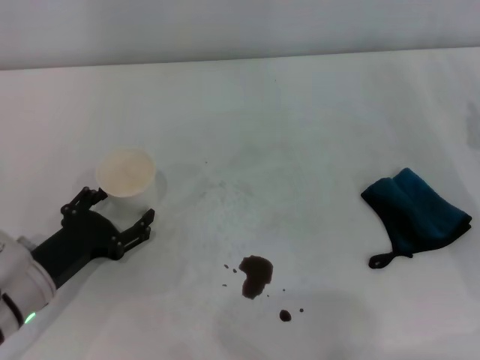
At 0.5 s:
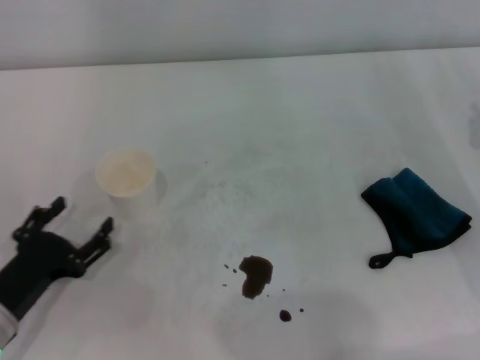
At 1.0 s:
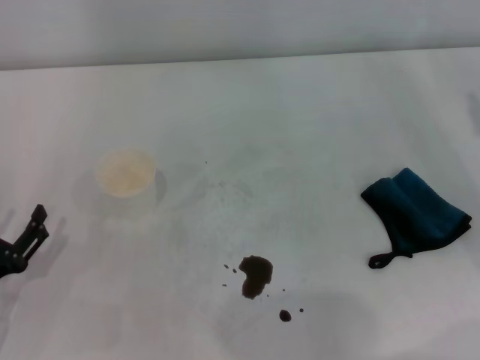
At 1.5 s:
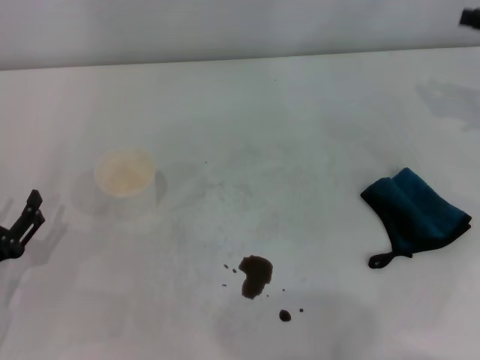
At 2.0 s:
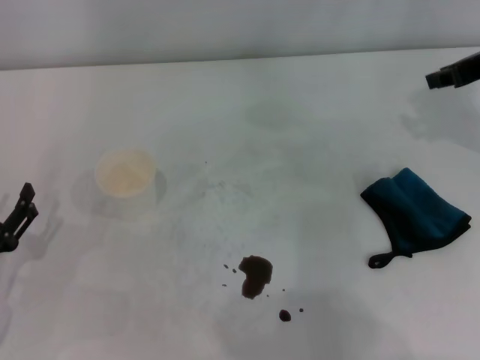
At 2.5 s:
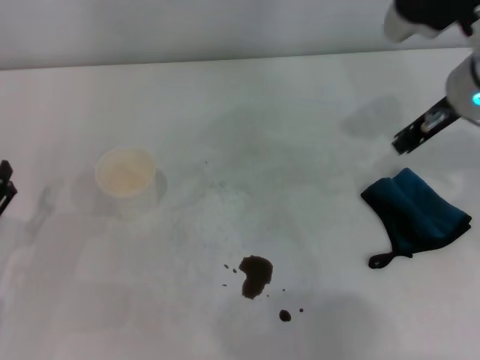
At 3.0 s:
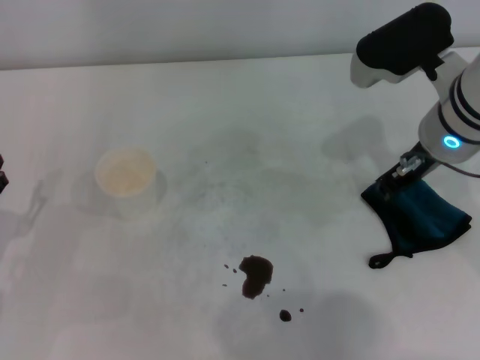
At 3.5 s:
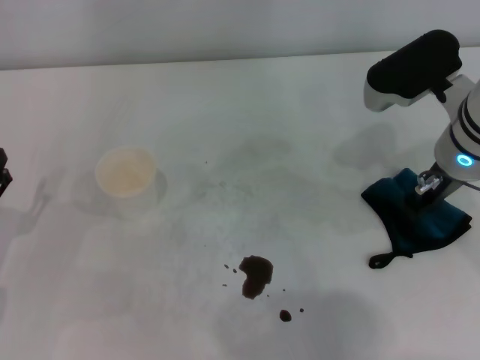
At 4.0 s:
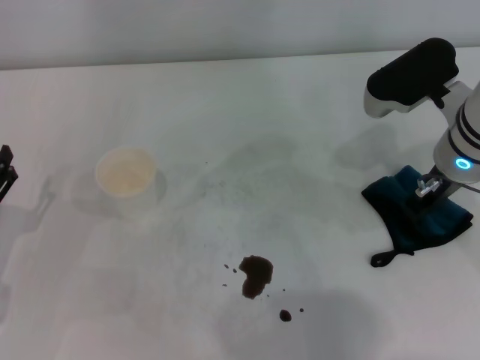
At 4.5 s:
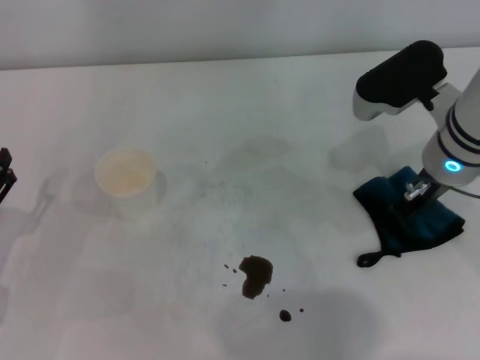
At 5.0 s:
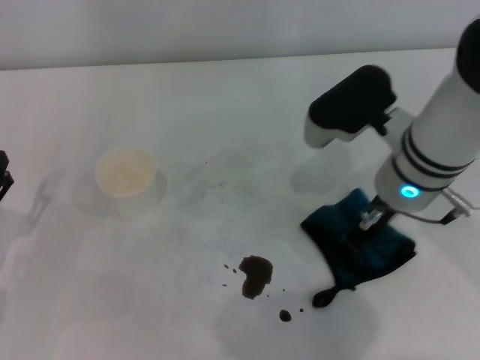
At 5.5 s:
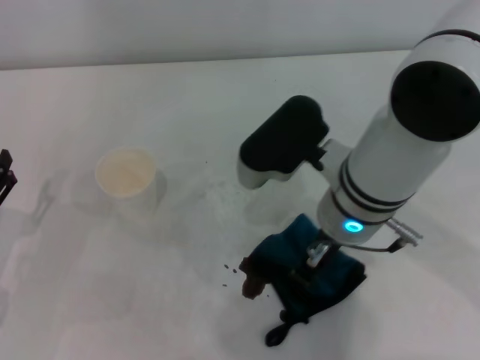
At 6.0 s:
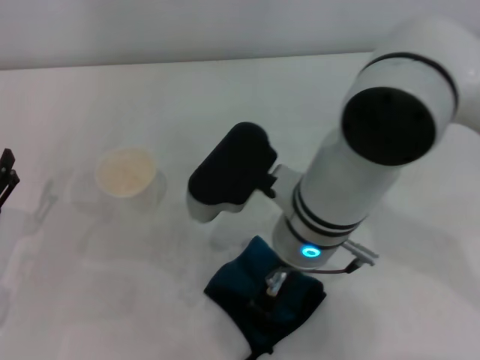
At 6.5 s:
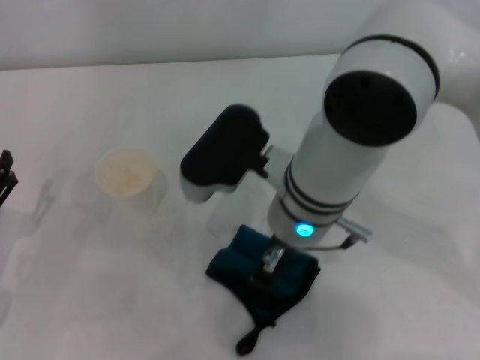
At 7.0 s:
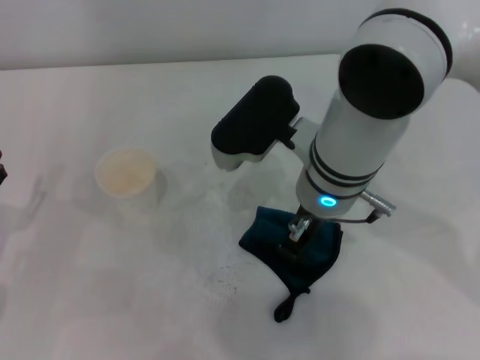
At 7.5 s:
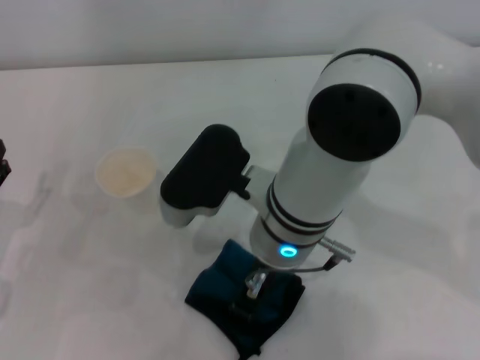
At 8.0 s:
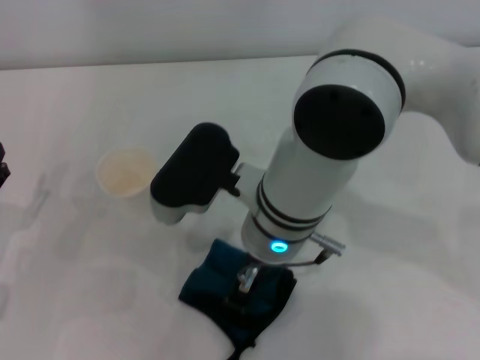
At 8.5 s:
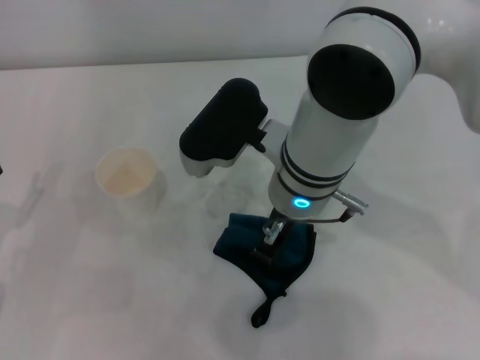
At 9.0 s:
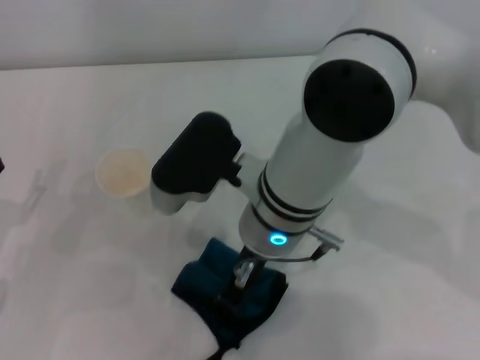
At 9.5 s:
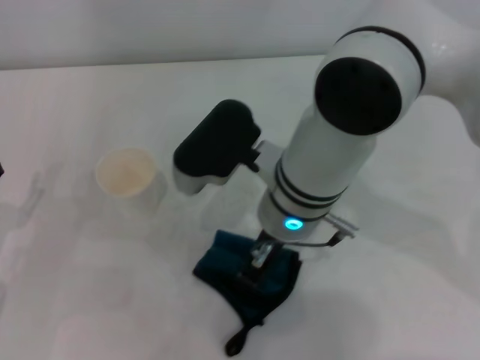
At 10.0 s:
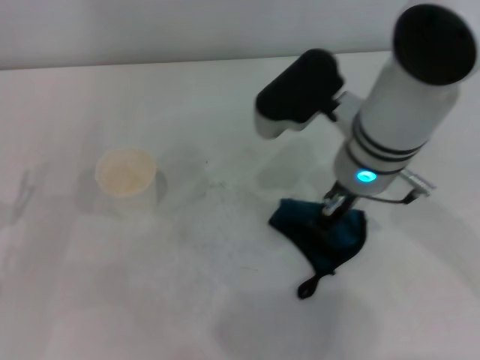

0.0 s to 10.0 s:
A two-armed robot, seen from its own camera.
Step, 0.0 to 4.0 s: Grasp the rag with the right gripper.
0.0 to 2.0 s: The right gripper moves upward and forward, some 20 cm. Meanwhile the left gripper moves to the left, about 5 cm.
2.0 to 4.0 s: The right gripper shifts some 15 cm to the left and downward.
4.0 to 6.0 s: The right gripper travels to the left by about 15 cm, and closes up.
8.0 to 10.0 s: The right gripper heads to the right, covering approximately 10 cm.

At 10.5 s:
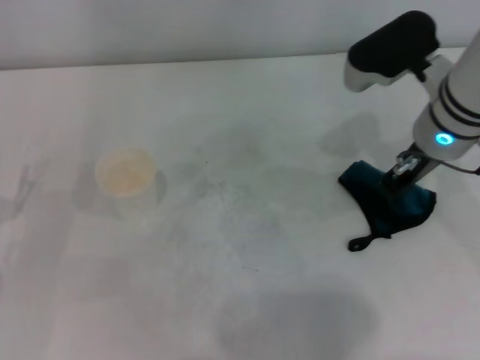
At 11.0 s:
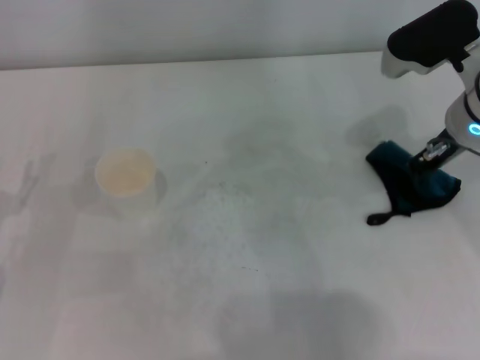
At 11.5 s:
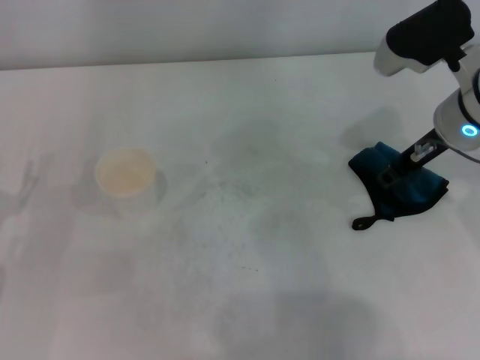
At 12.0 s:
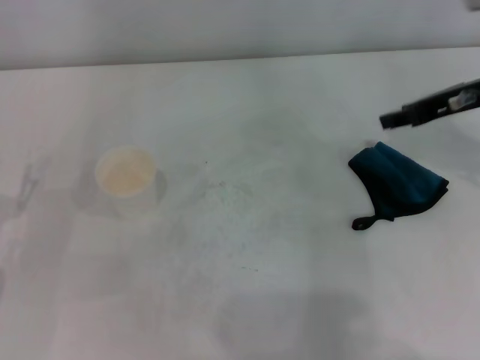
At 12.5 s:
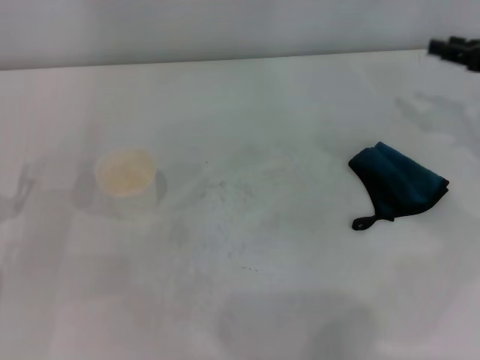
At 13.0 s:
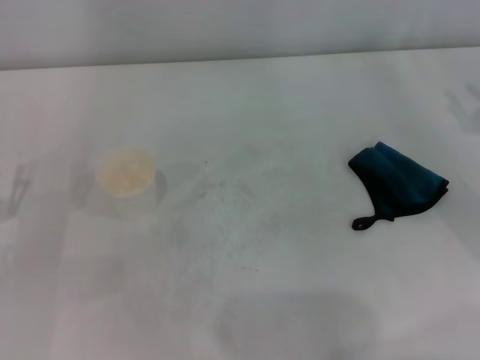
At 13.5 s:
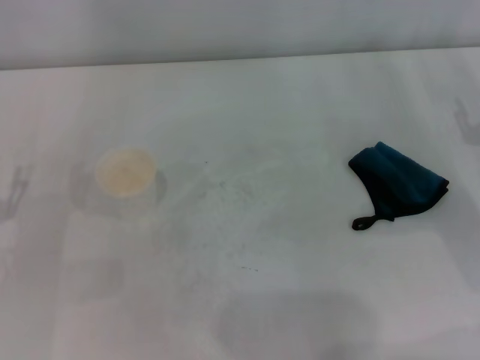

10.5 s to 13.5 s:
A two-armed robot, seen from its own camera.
10.5 to 12.0 s: The right gripper moves to the right, approximately 10 cm, and opens its fingers.
12.0 to 13.5 s: The right gripper moves downward, backward and to the right, roughly 15 cm.
